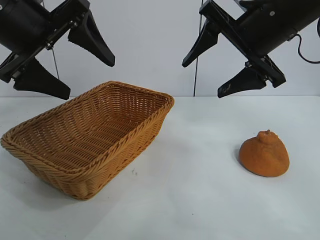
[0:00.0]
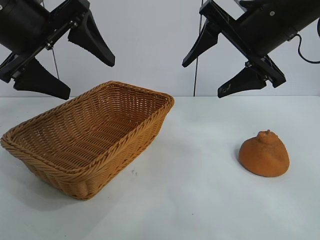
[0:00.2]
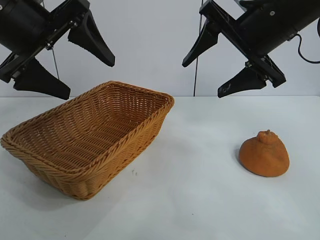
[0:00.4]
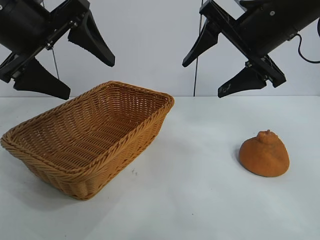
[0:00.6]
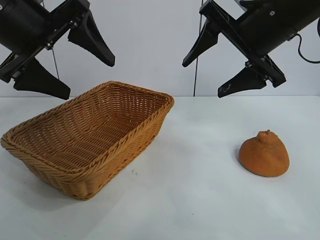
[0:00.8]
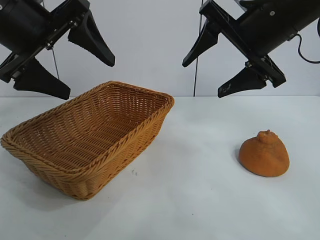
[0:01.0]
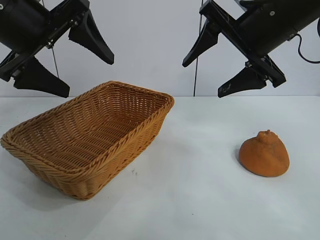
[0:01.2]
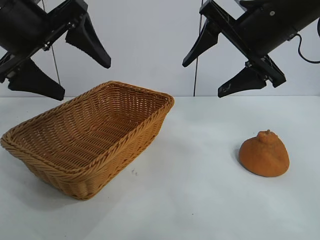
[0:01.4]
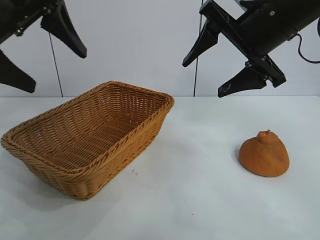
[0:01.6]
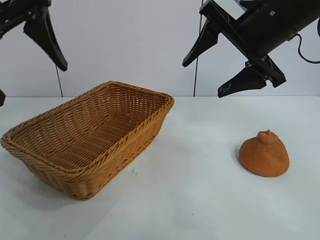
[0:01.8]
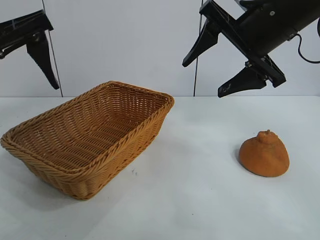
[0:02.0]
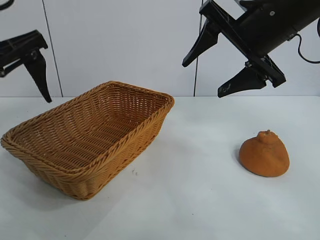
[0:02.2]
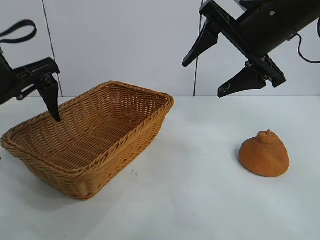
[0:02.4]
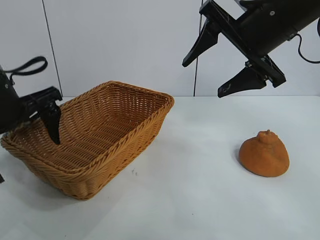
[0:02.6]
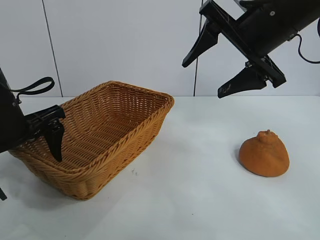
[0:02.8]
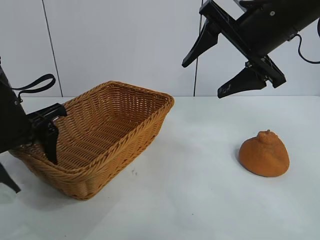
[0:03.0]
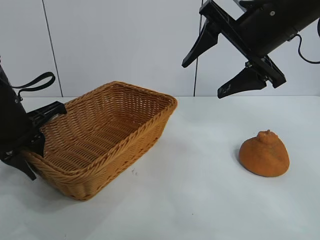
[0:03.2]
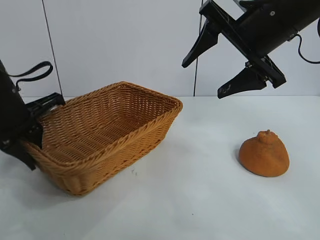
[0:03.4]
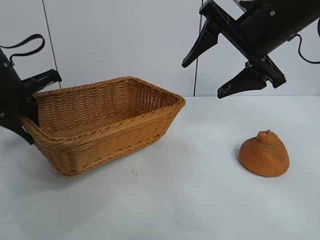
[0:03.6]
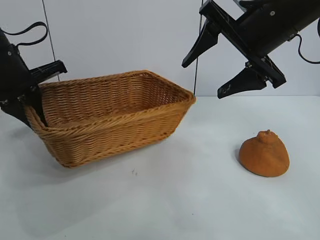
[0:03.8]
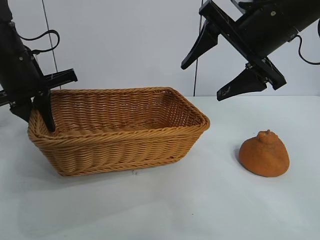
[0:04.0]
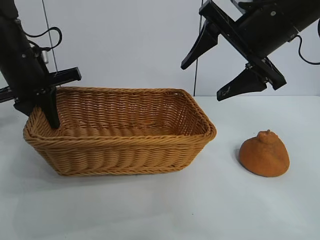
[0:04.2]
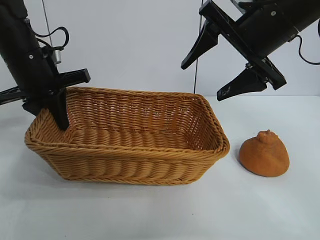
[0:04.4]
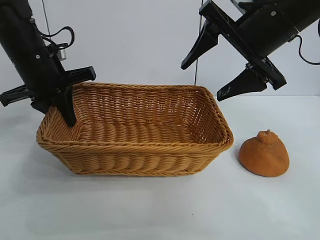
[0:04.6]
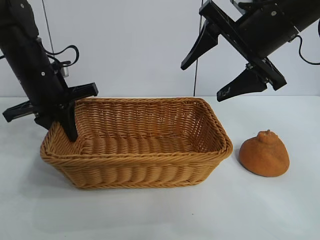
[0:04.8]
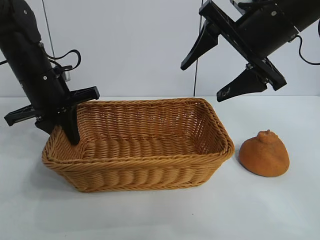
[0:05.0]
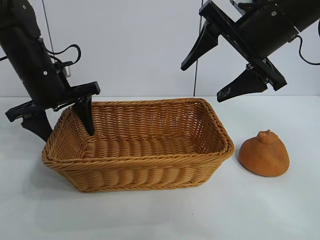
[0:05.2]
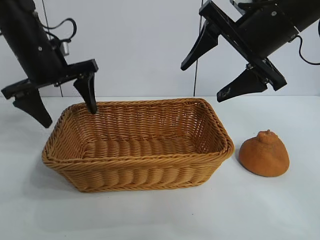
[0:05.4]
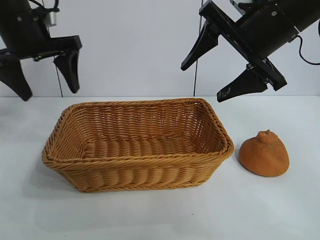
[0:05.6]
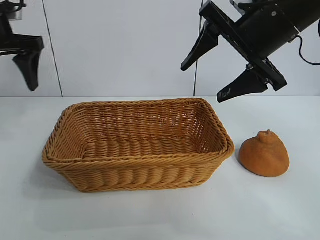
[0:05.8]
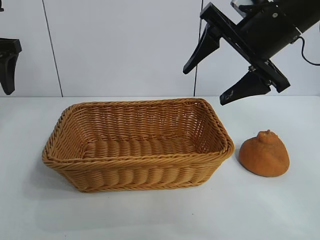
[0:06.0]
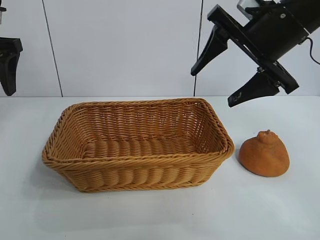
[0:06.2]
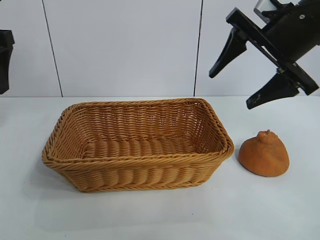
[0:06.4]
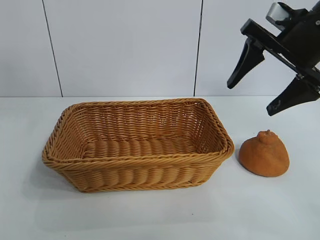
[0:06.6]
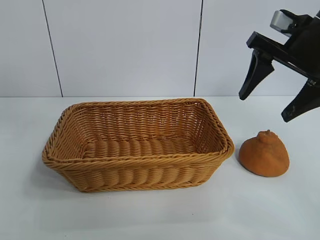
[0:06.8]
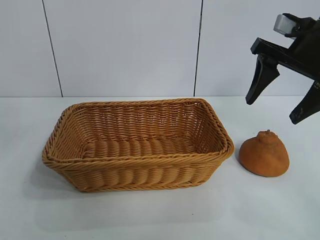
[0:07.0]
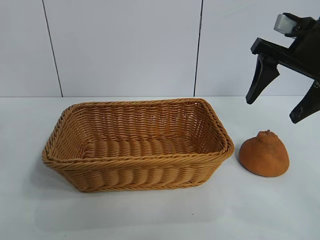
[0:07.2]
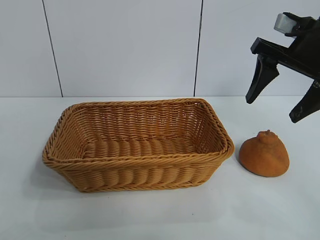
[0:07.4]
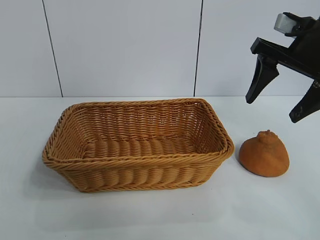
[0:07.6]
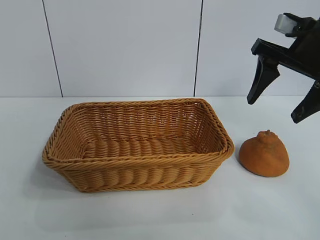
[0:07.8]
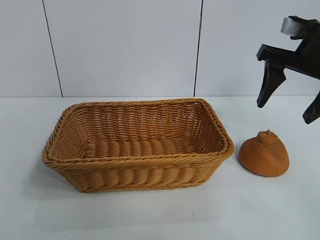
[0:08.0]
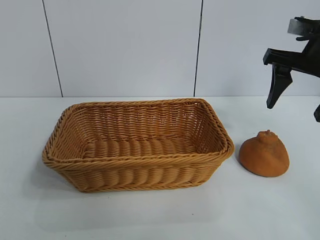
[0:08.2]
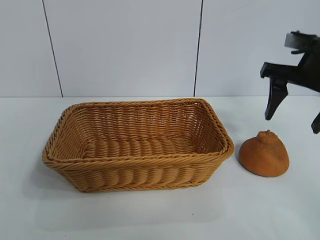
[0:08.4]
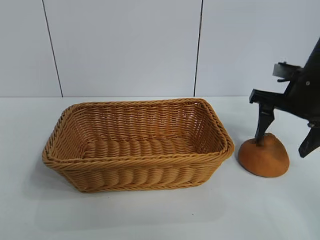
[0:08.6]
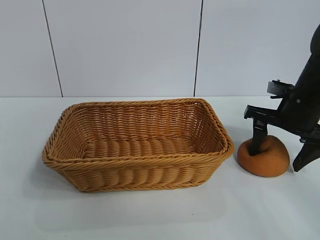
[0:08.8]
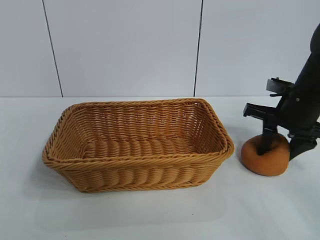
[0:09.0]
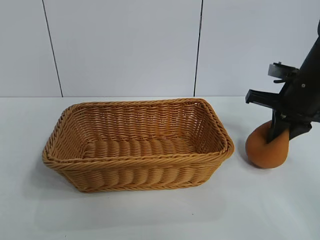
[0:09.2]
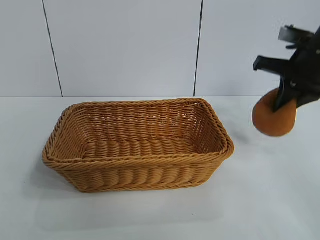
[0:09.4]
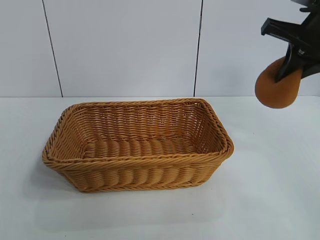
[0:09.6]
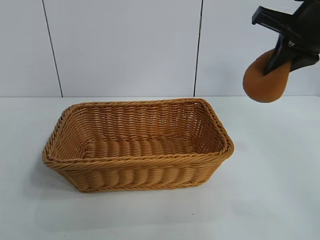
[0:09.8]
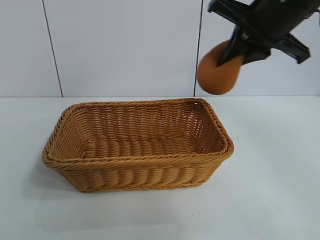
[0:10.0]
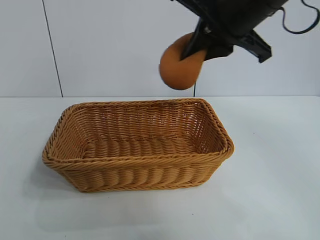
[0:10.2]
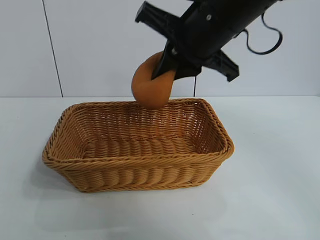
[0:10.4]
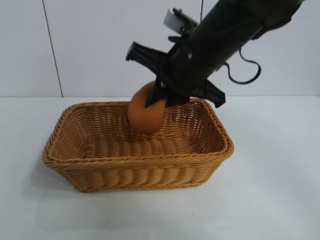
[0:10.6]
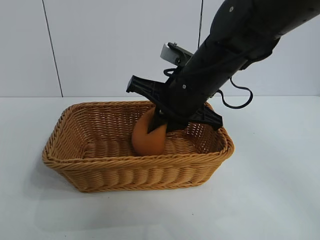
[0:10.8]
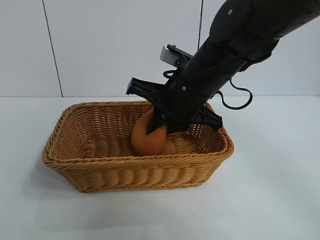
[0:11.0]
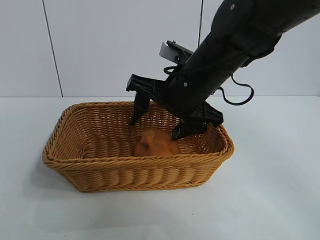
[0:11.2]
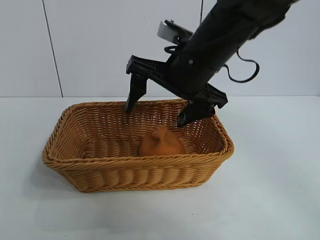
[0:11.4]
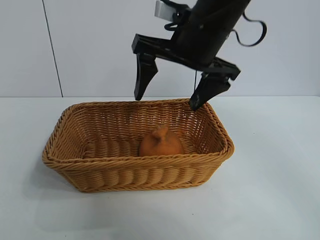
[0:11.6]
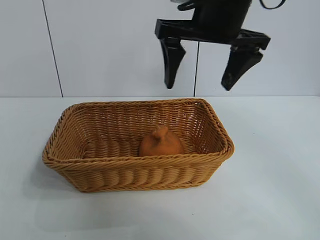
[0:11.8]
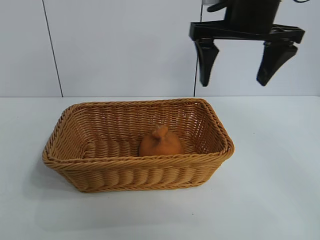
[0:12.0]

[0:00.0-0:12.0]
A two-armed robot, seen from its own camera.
Task of the whole recording: pick up the orange and put it into the basket.
Step, 0:01.2 to 0:03.2: Grasp the basket with left gripper.
Step, 0:03.4 to 0:05.0: Place the basket in the center of view with left gripper.
Step, 0:05.4 to 0:09.0: Grasp the orange with right gripper.
Step, 0:09.2 to 0:11.2: Place the orange in the basket with right gripper.

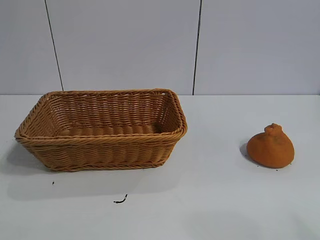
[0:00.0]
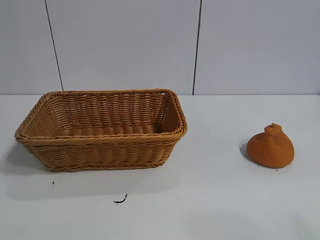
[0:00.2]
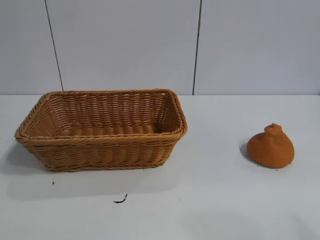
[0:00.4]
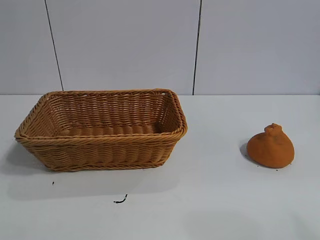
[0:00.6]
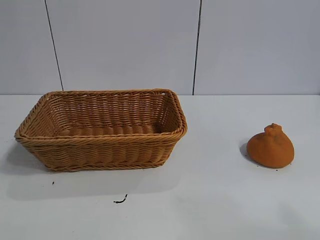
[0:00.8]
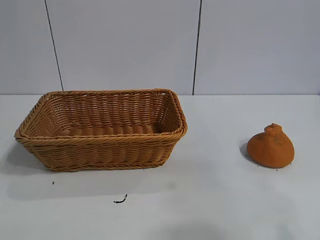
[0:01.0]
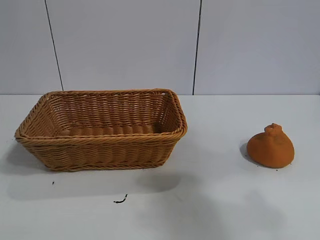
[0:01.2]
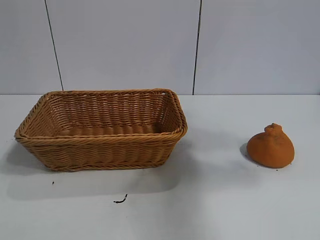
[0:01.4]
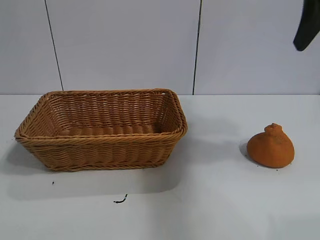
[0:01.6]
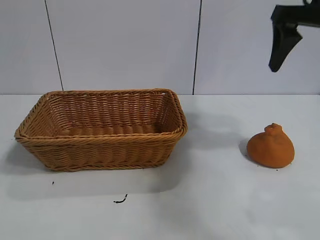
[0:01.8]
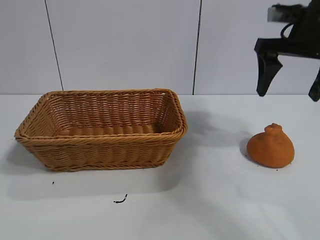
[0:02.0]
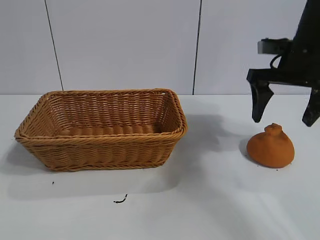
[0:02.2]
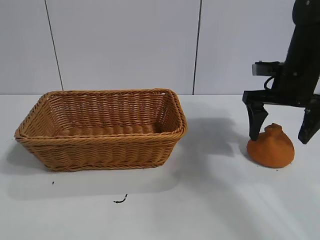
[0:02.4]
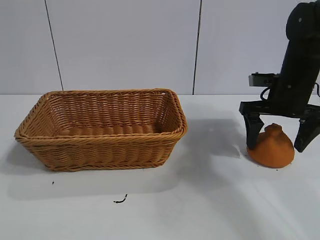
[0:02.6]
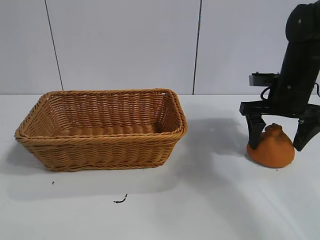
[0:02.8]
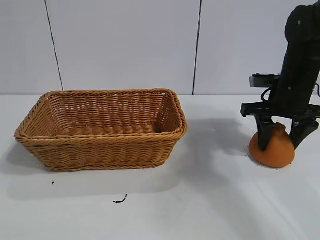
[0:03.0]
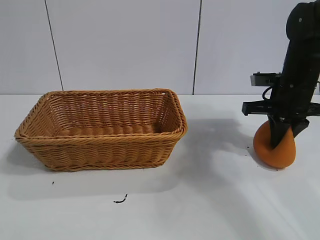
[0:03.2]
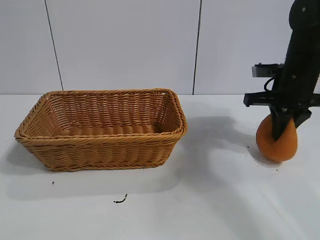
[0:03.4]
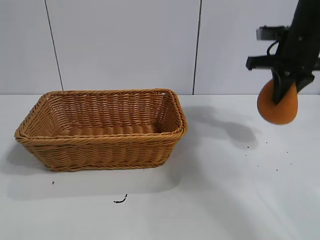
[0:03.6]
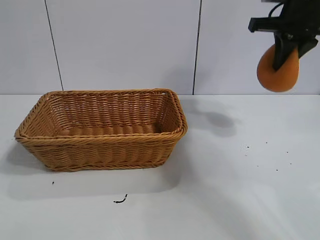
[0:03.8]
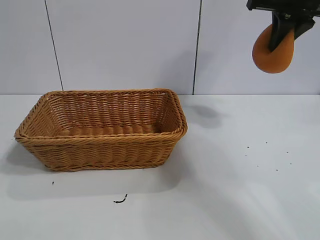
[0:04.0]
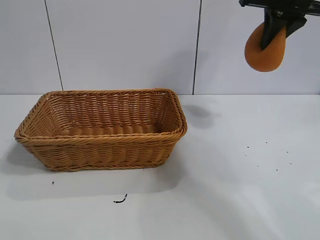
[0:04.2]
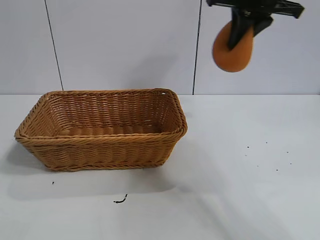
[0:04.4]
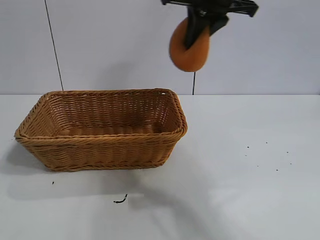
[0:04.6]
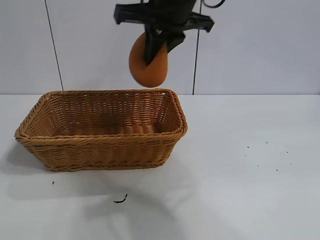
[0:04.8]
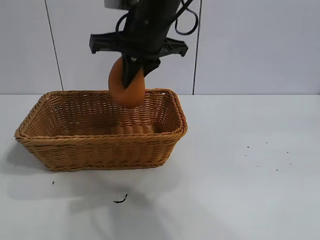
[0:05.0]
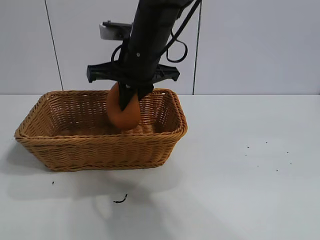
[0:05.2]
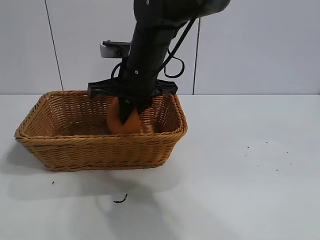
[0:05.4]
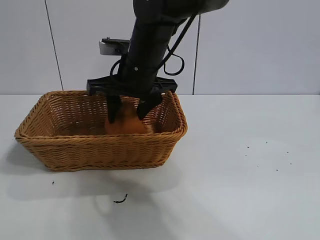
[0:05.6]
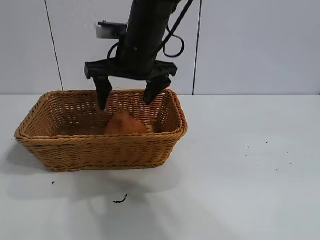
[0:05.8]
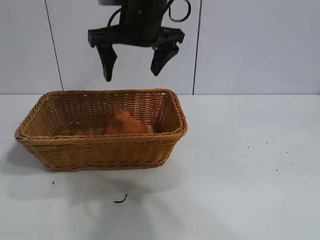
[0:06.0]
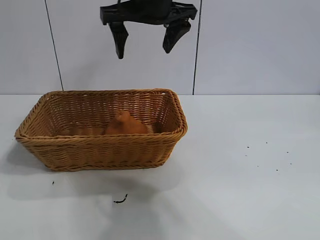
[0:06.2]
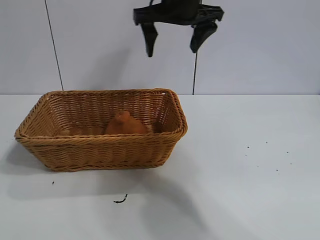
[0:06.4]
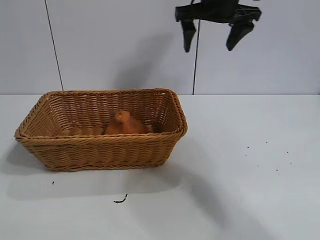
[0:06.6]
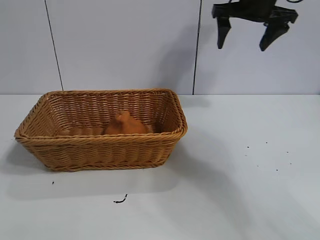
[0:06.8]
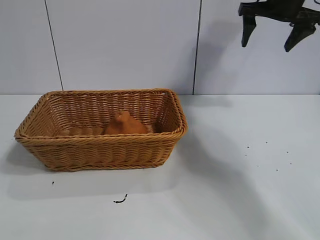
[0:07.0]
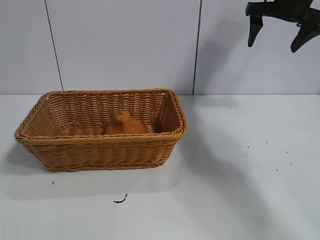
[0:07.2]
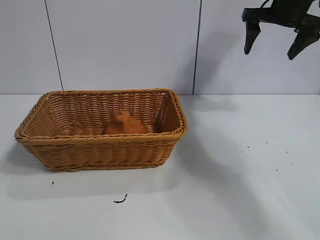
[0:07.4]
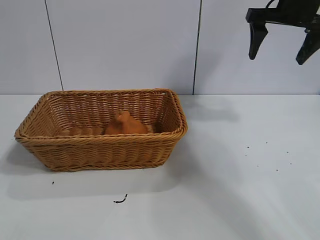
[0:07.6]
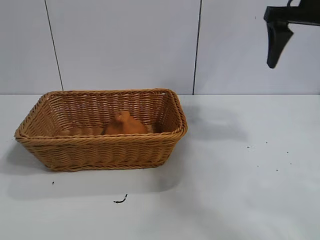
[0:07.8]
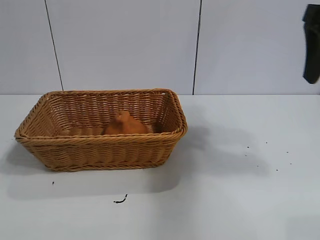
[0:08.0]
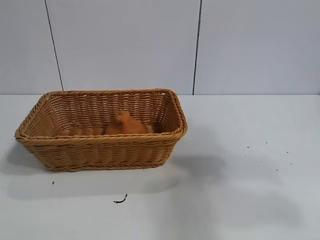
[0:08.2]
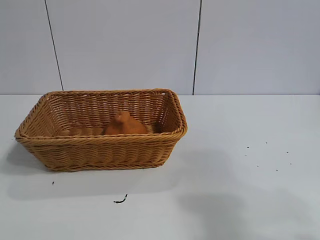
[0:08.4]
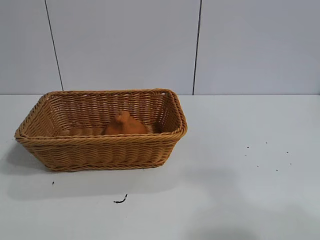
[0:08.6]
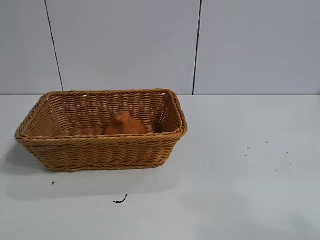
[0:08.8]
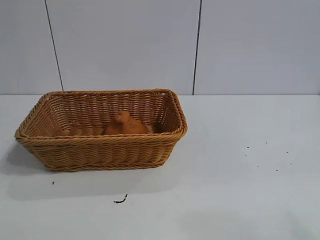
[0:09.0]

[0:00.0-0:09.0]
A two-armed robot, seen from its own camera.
Task of the whole recording: pick up the orange and put it into the basket.
Step, 0:00.6 to 0:03.2: Grasp the orange with right gripper.
Step, 0:03.4 to 0:05.8: Place the orange in the basket with right gripper.

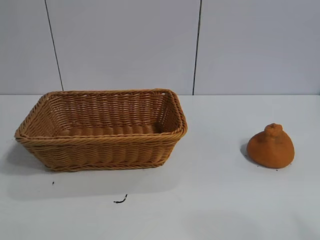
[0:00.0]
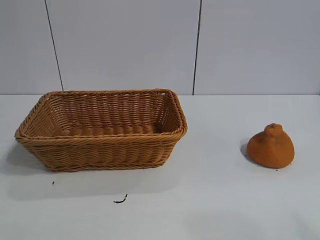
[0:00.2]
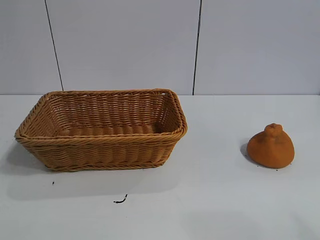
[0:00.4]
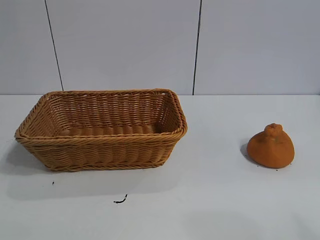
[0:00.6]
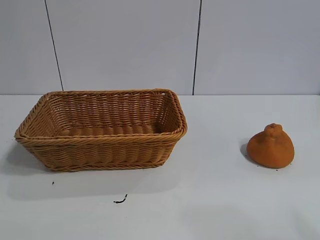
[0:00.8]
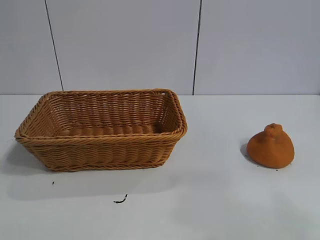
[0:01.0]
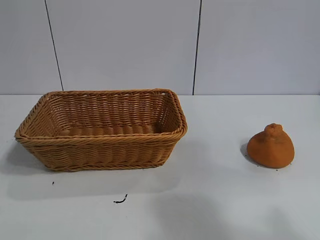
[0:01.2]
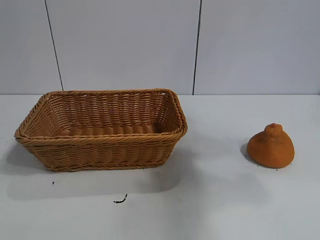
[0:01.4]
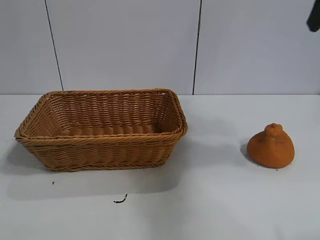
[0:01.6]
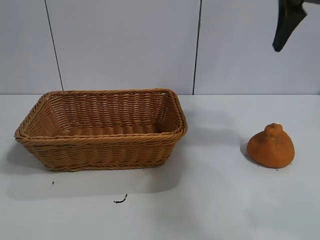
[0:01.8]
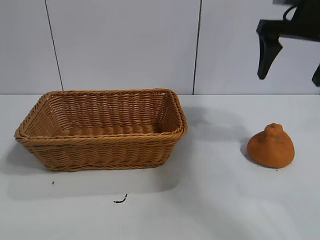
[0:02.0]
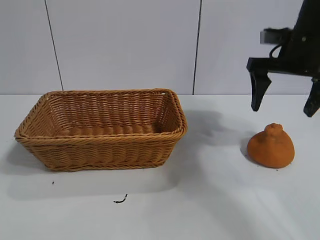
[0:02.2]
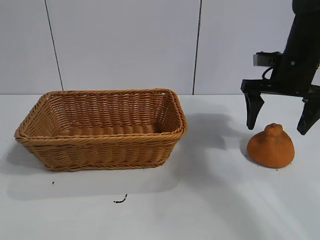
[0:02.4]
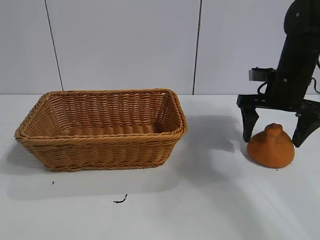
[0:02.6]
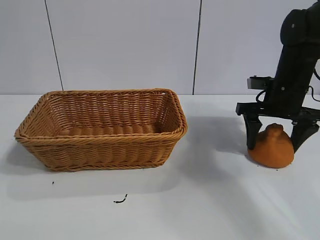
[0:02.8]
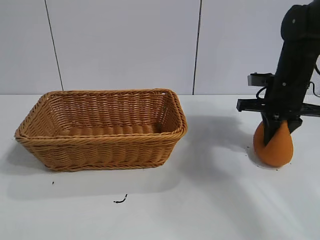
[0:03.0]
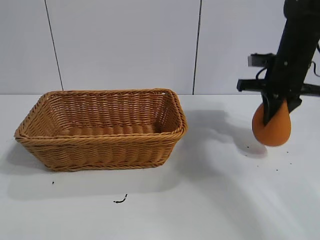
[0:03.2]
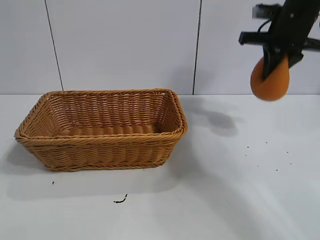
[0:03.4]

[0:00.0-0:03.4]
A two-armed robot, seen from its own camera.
Task of the whole recording: pick up the orange and put it into the basket.
Step, 0:00.8 to 0:02.8: Grasp the orange with right gripper.
